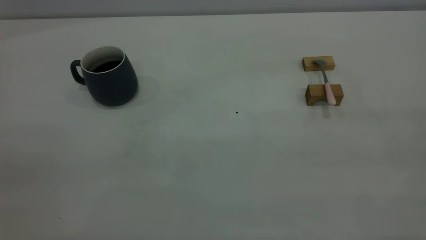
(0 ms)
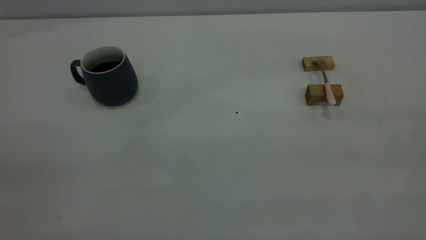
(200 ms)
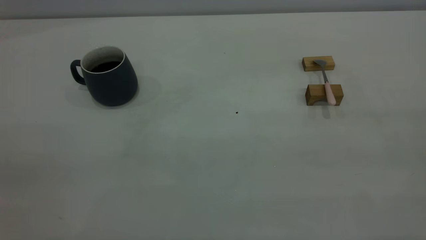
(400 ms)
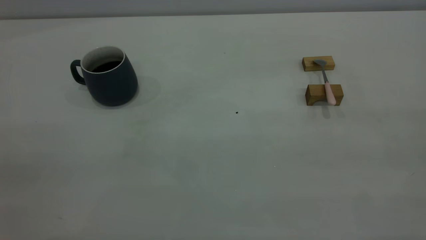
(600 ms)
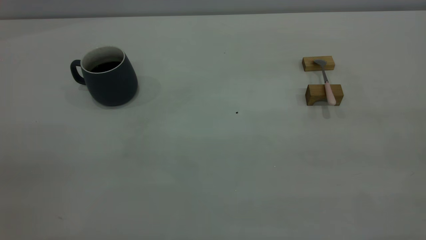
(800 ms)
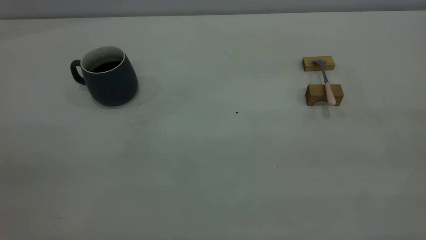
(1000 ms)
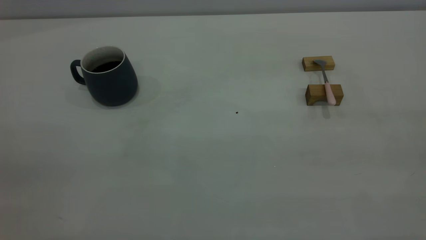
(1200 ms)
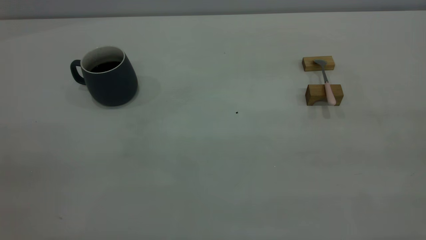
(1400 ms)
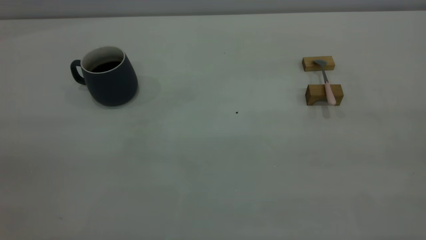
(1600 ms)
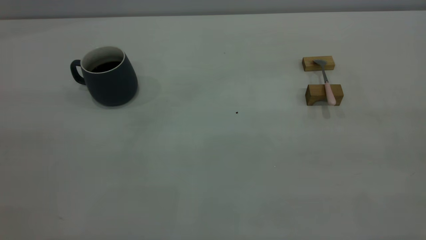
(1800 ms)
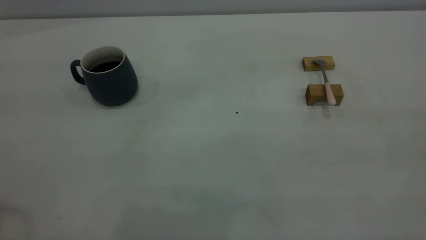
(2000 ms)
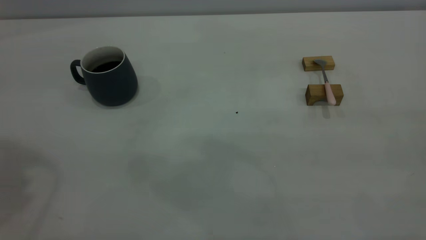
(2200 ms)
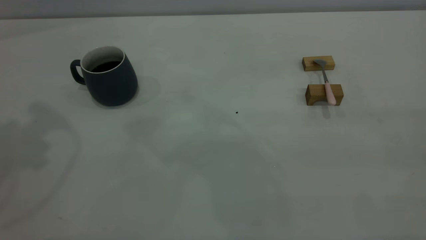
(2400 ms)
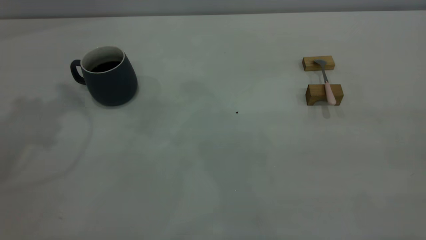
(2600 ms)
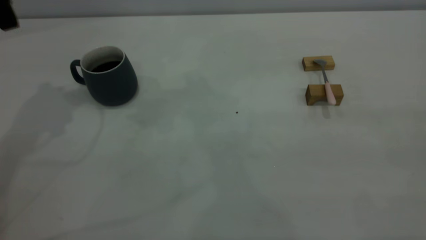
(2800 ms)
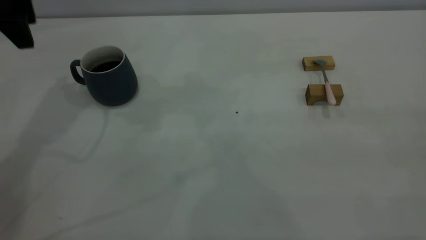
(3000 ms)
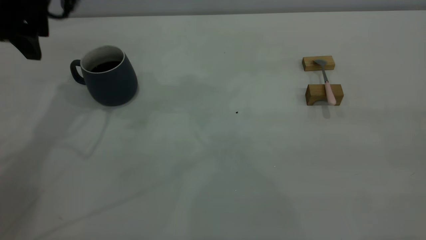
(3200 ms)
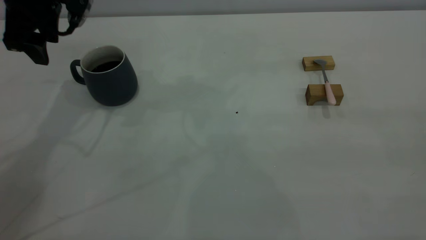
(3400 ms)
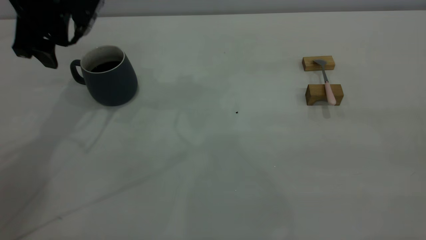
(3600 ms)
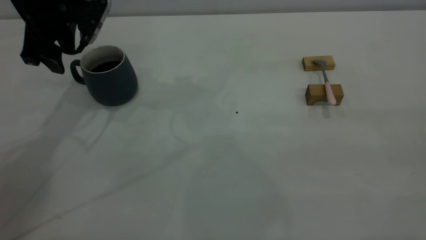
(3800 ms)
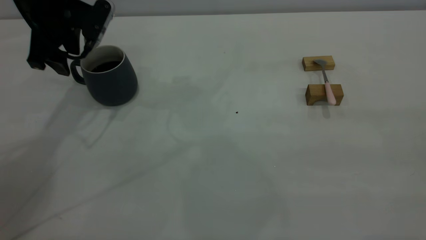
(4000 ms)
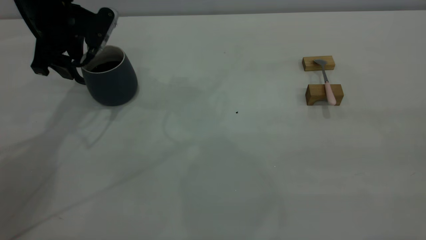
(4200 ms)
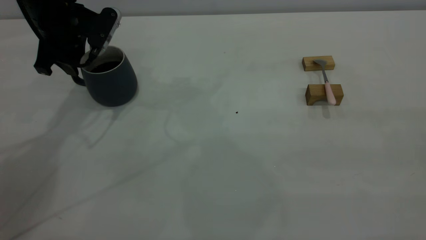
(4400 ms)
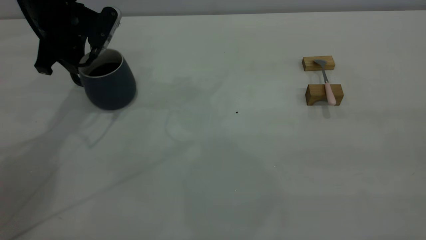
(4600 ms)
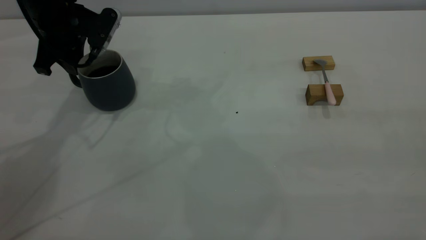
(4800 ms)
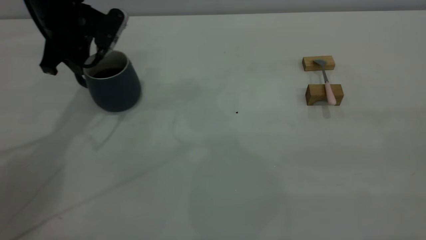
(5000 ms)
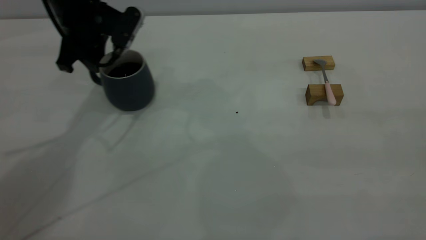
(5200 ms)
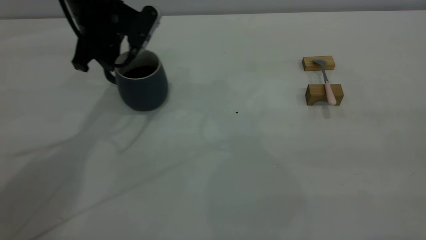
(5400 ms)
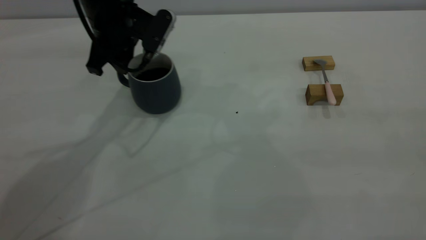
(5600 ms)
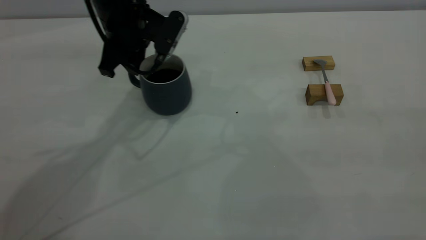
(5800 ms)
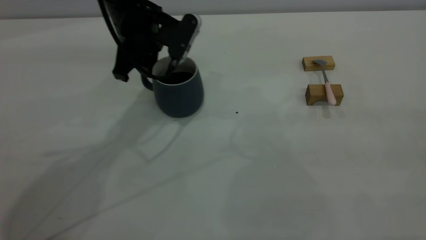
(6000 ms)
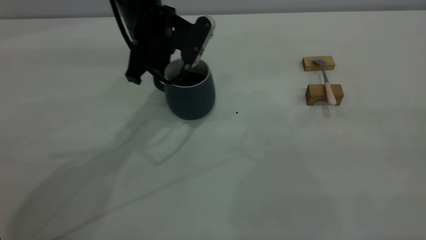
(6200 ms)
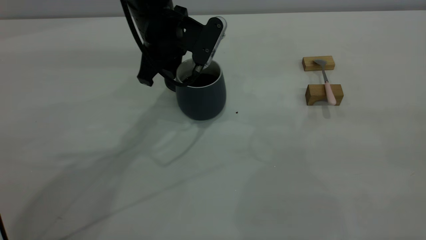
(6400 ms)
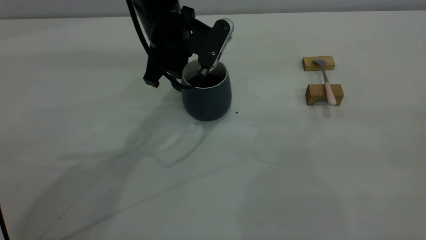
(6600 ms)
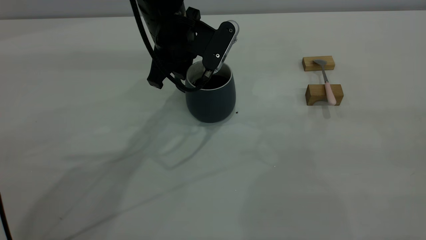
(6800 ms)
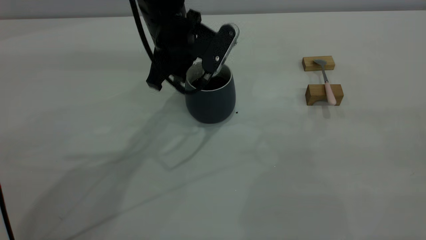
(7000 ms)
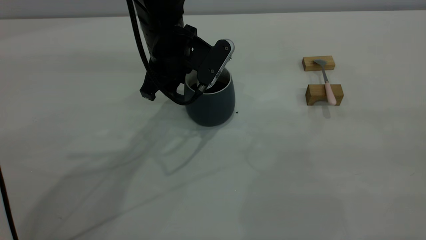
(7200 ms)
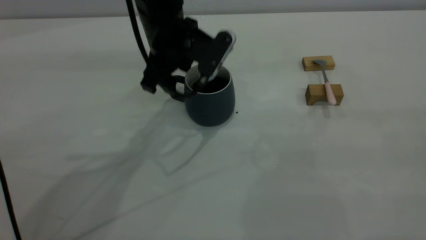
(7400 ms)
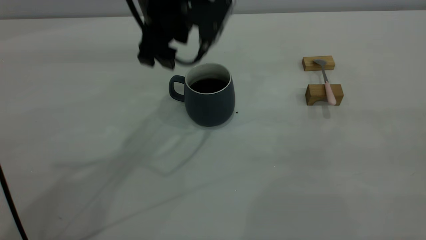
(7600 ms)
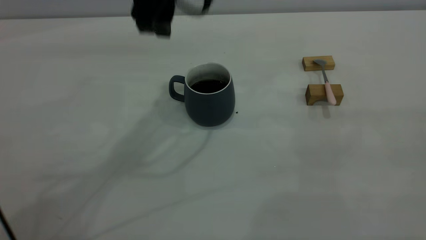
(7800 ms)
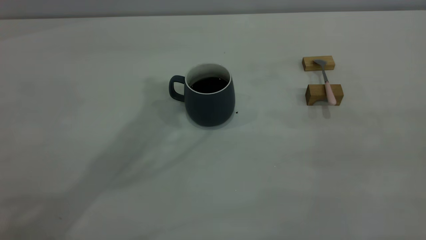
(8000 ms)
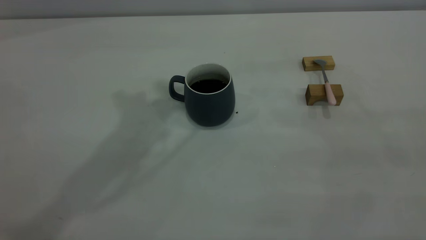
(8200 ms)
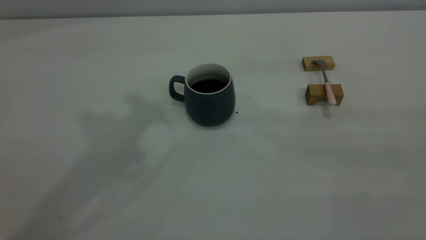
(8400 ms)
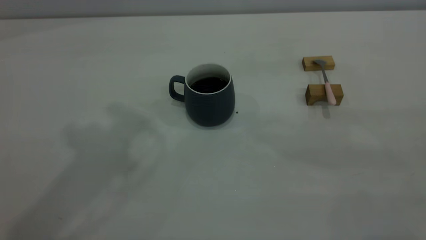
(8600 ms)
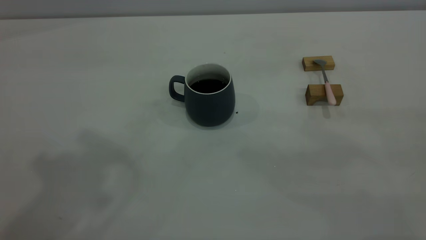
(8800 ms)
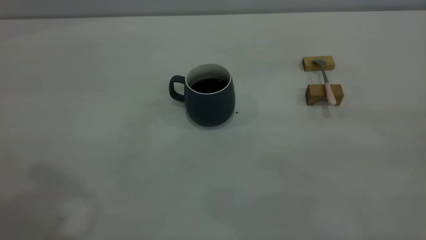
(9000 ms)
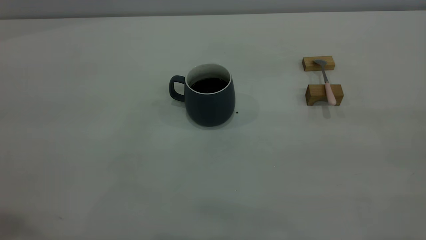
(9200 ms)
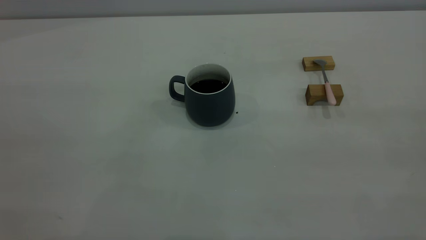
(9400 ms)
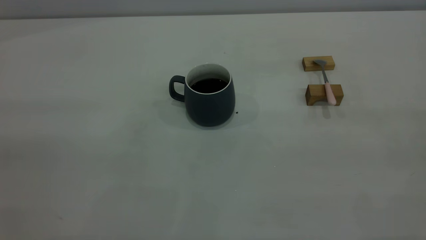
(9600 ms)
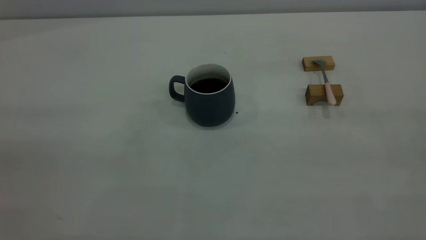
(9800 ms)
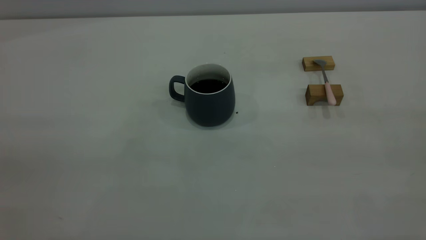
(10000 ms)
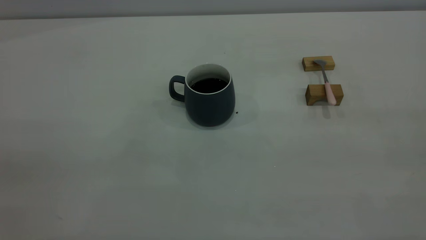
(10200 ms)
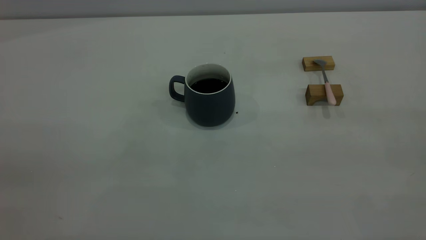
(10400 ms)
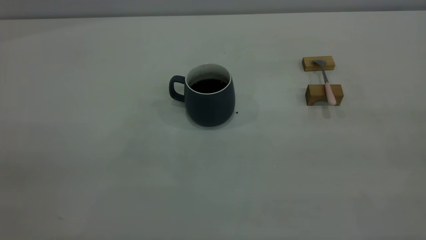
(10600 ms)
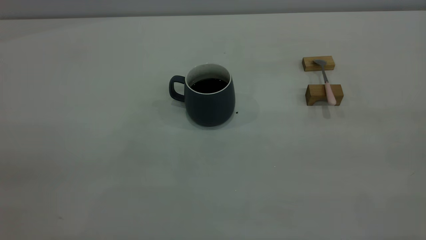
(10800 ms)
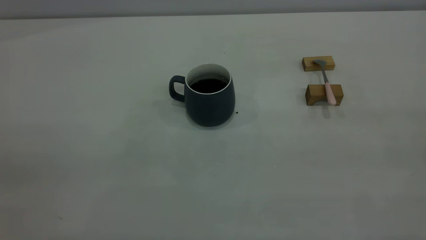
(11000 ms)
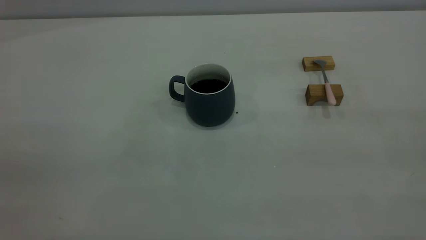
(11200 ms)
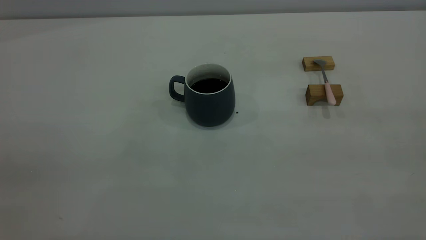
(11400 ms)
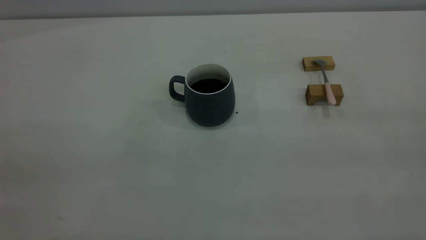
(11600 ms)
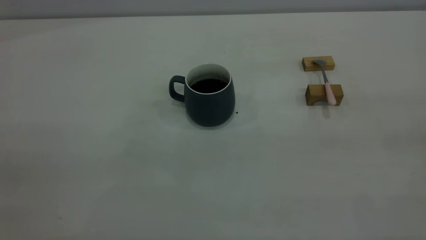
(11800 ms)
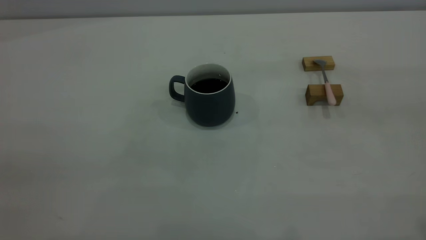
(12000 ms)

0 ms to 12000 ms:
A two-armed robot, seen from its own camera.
Step, 2800 ms to 7400 ms: Move the cup in the center of the table with left gripper.
1600 ms to 3000 ms: The left gripper travels forward by roughly 40 cm, and opens.
3000 ms to 4400 ms: The left gripper shifts roughly 10 cm downward, and closes up.
4400 ms to 6000 ms: The left gripper goes about 15 cm to the right.
6000 ms to 7600 ms: The left gripper goes approximately 5 cm upward, and opens its fingers.
7600 ms to 9000 ms: The left gripper moves backward, upward and to the left, approximately 35 cm.

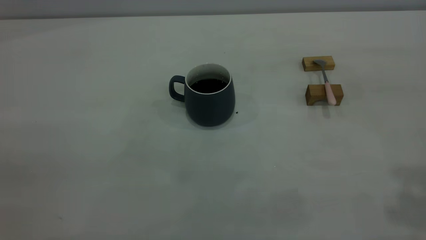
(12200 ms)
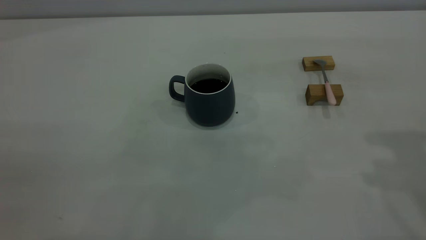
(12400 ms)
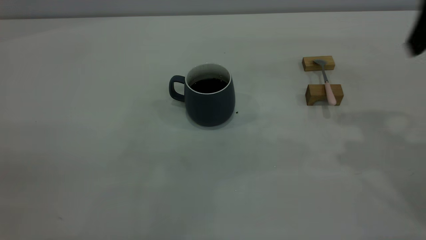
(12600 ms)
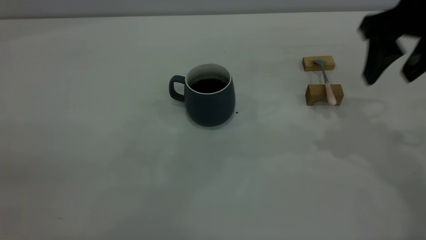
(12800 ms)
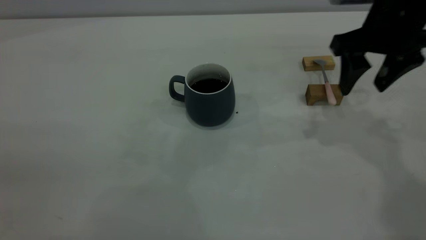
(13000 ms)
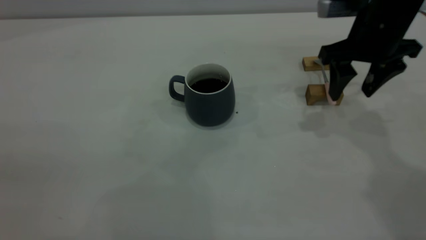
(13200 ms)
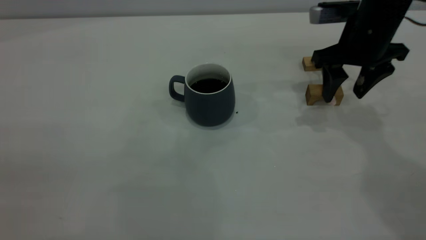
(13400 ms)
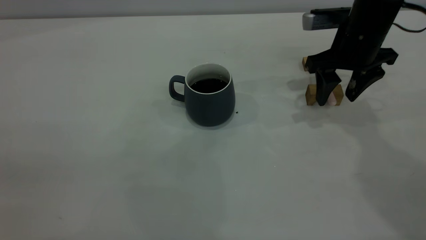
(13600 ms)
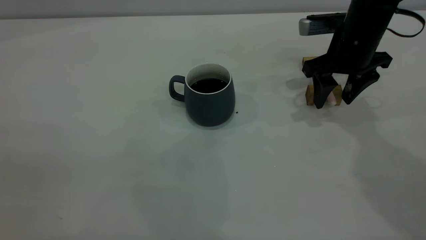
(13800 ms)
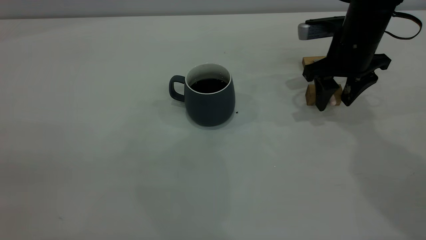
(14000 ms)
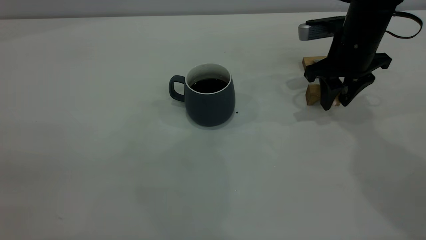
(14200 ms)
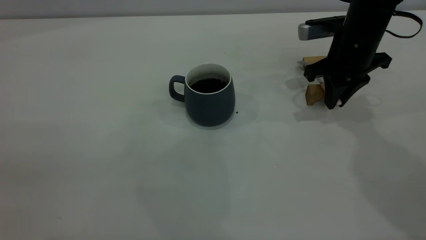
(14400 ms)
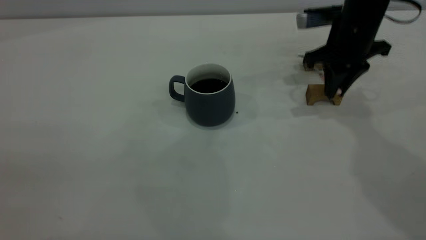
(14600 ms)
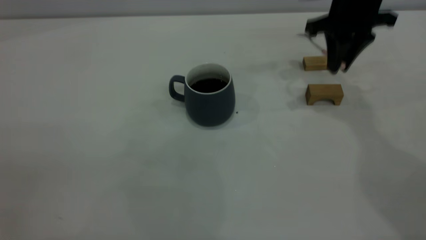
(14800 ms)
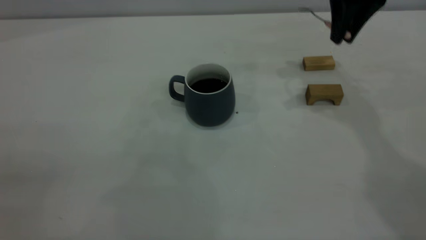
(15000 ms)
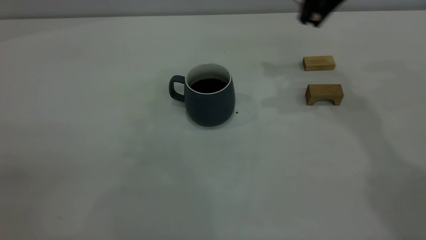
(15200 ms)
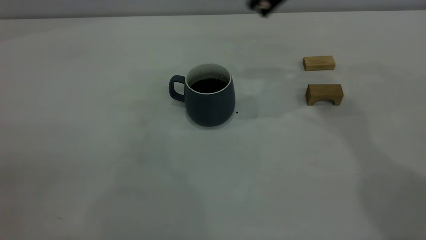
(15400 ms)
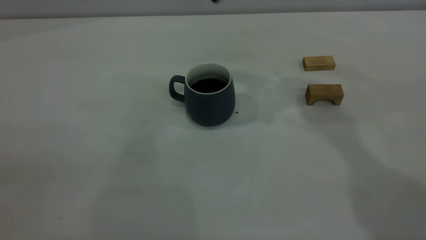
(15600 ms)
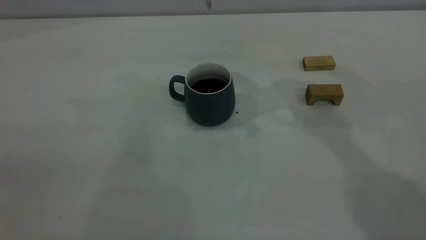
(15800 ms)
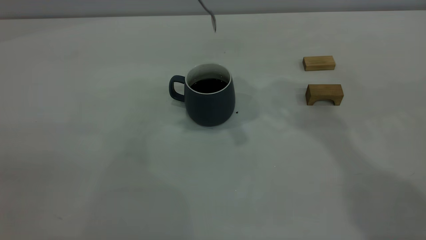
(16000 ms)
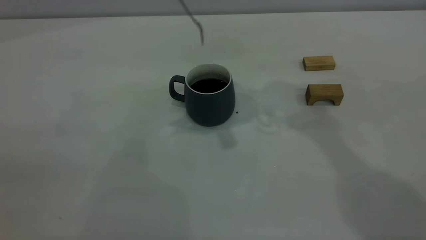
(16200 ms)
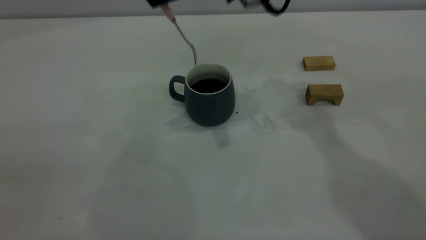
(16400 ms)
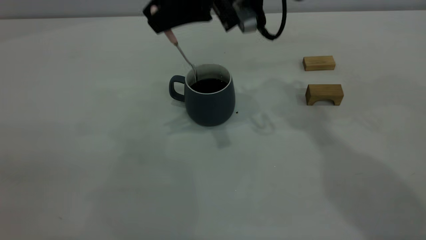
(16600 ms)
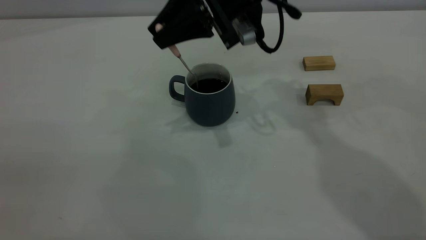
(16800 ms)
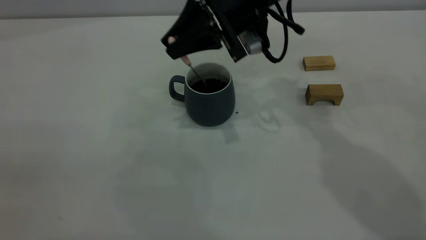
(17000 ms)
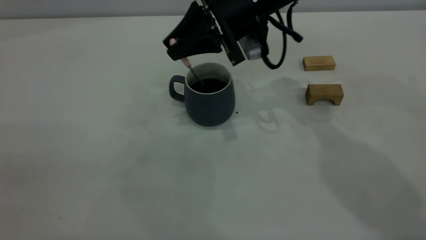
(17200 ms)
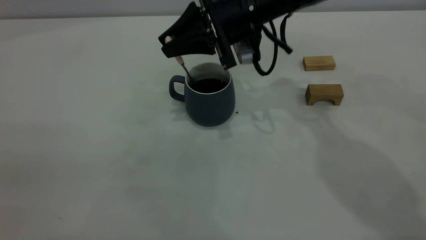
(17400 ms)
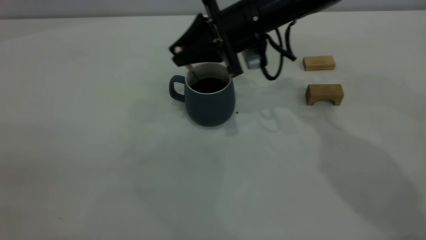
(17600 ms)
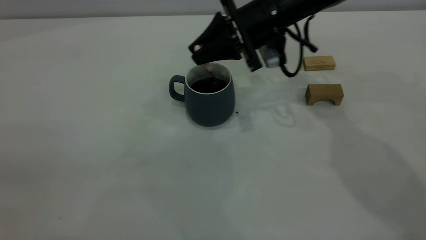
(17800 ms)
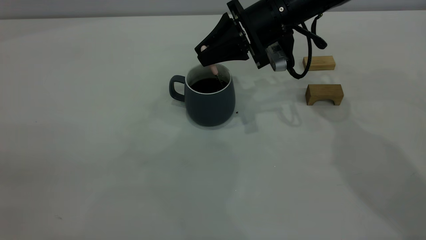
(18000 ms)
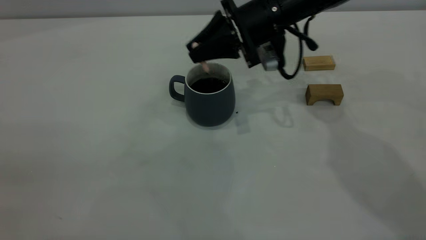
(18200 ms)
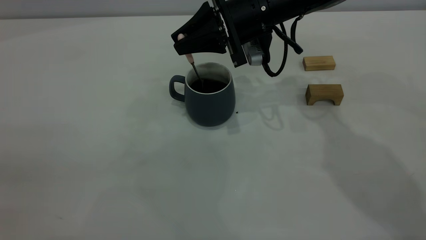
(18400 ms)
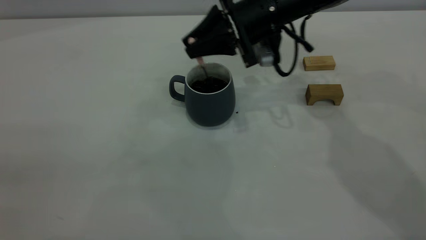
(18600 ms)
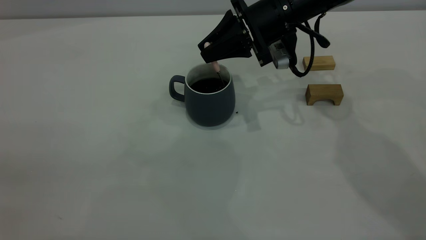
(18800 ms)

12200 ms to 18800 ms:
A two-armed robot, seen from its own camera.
Step, 12200 ms to 14400 ms: Grasp the spoon with right gripper.
12200 ms to 13800 ms: The right gripper shifts roughly 35 cm downward and forward.
13800 ms to 15400 ms: The right gripper travels upward and to the left by some 20 cm, and closes its fingers.
15400 ms to 17200 ms: The right gripper travels downward and to the left by about 15 cm.
17200 ms to 18800 ms: The right gripper changes place by approximately 5 cm.
